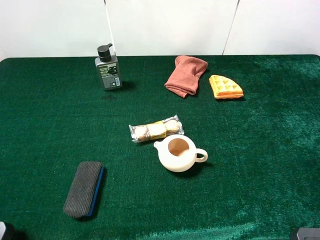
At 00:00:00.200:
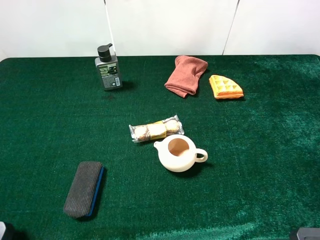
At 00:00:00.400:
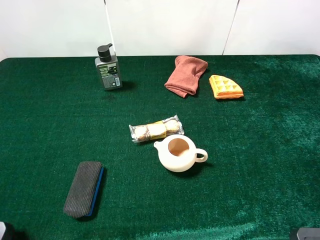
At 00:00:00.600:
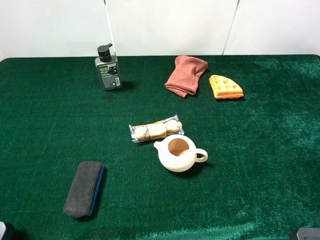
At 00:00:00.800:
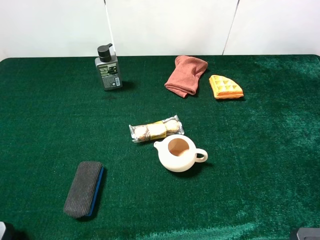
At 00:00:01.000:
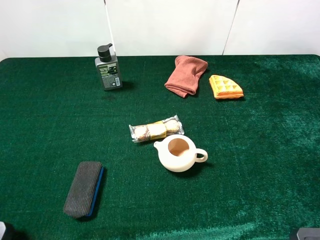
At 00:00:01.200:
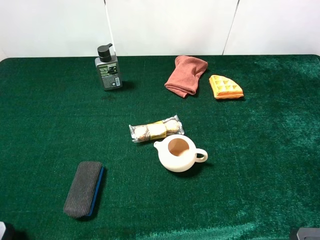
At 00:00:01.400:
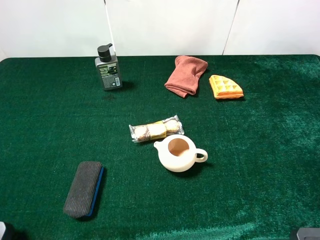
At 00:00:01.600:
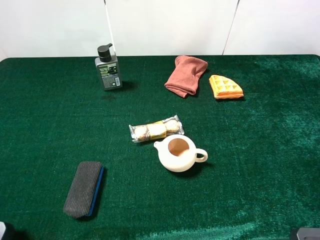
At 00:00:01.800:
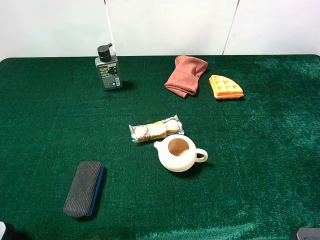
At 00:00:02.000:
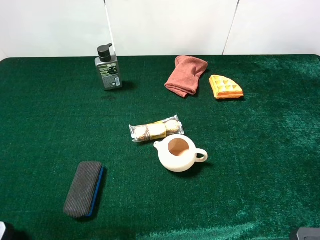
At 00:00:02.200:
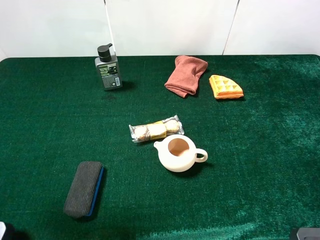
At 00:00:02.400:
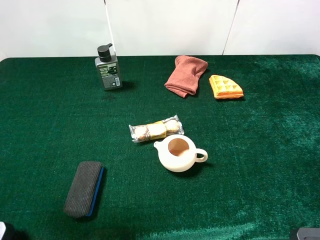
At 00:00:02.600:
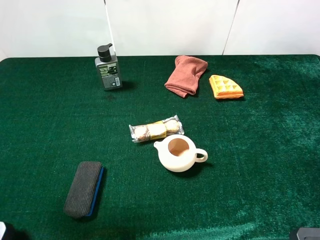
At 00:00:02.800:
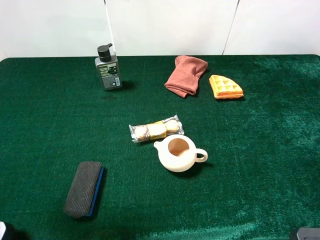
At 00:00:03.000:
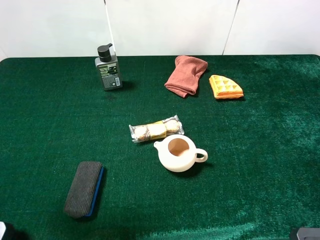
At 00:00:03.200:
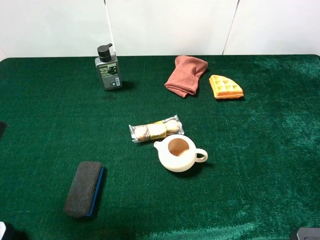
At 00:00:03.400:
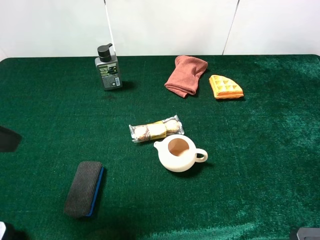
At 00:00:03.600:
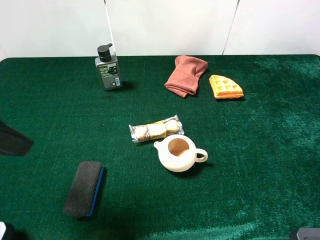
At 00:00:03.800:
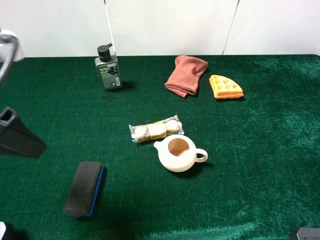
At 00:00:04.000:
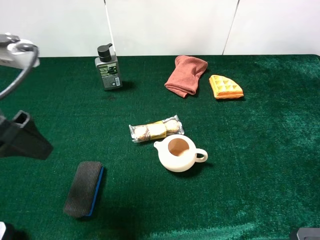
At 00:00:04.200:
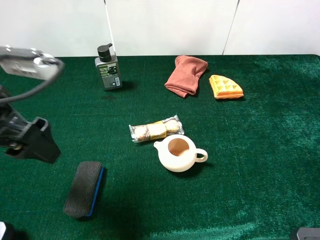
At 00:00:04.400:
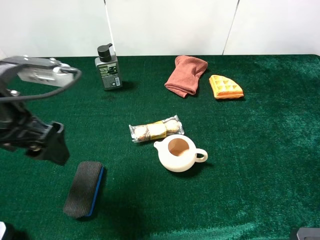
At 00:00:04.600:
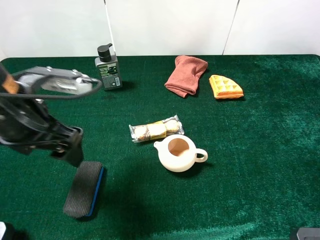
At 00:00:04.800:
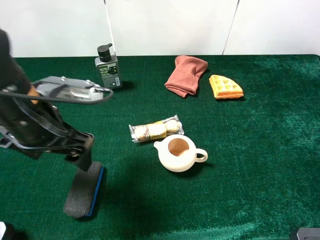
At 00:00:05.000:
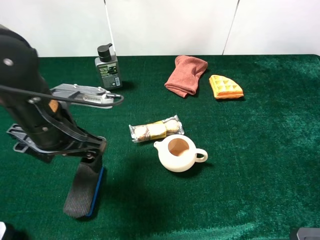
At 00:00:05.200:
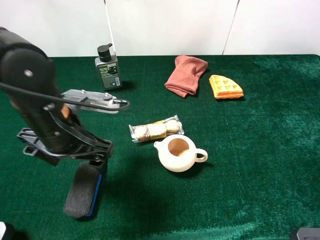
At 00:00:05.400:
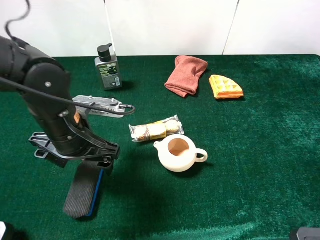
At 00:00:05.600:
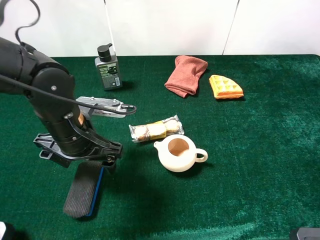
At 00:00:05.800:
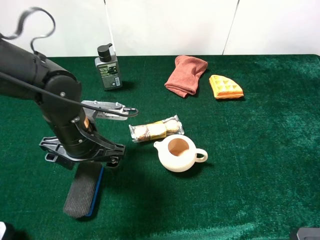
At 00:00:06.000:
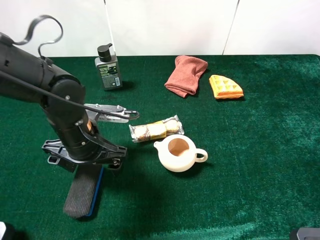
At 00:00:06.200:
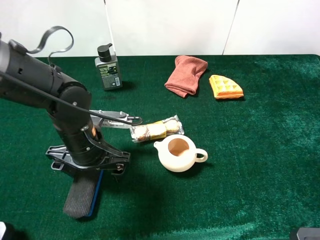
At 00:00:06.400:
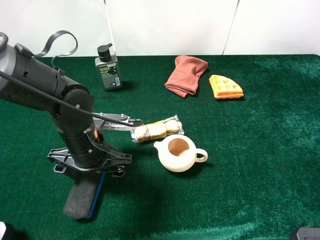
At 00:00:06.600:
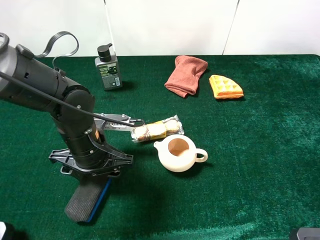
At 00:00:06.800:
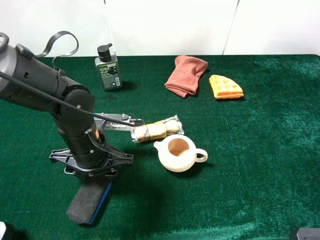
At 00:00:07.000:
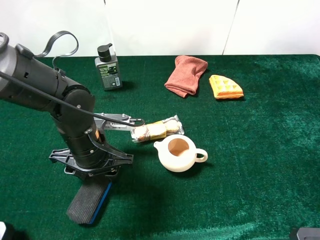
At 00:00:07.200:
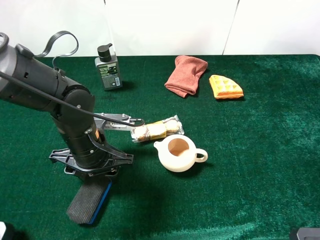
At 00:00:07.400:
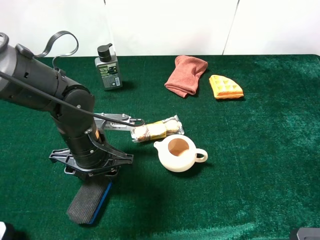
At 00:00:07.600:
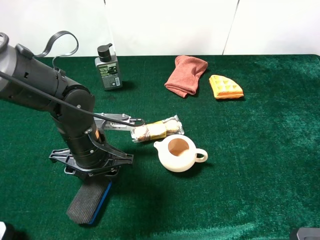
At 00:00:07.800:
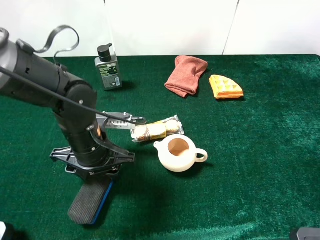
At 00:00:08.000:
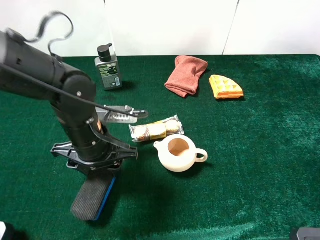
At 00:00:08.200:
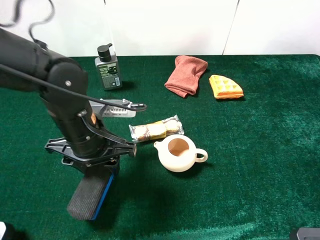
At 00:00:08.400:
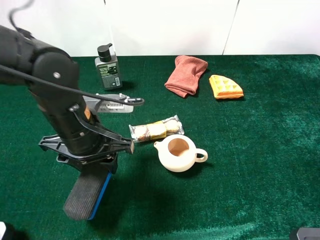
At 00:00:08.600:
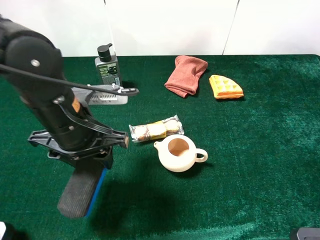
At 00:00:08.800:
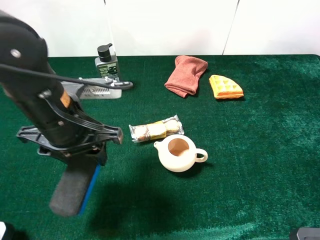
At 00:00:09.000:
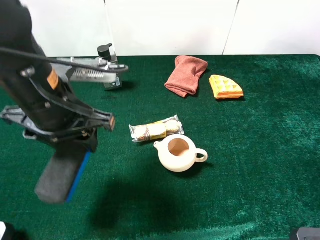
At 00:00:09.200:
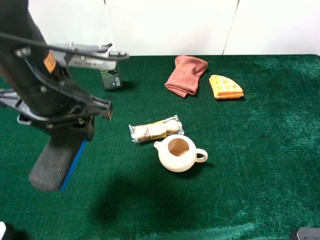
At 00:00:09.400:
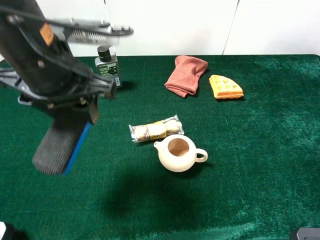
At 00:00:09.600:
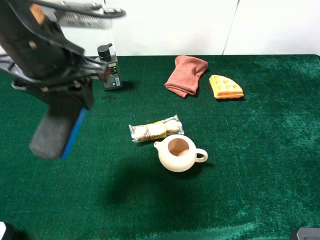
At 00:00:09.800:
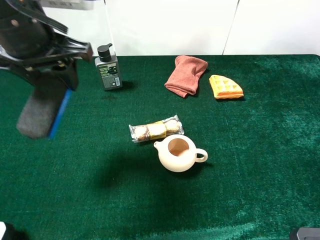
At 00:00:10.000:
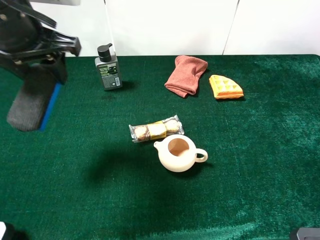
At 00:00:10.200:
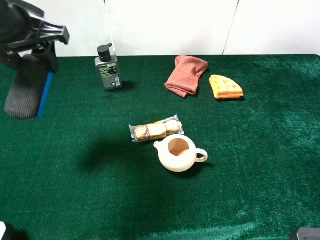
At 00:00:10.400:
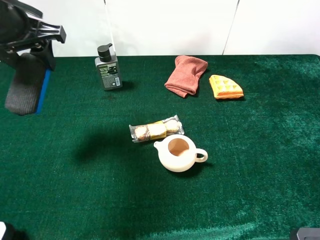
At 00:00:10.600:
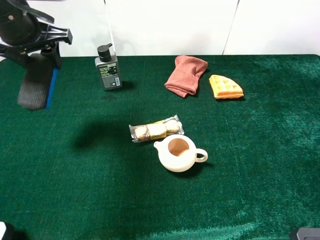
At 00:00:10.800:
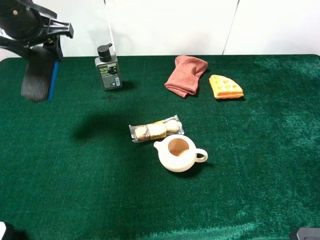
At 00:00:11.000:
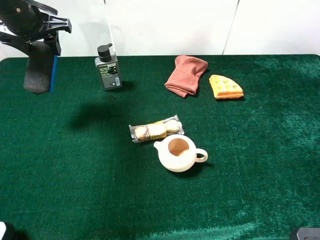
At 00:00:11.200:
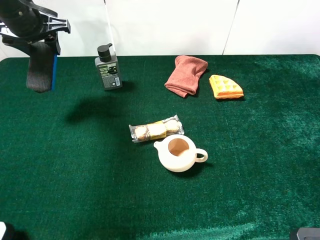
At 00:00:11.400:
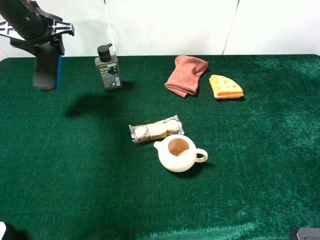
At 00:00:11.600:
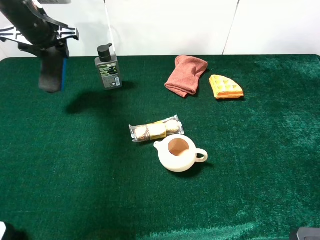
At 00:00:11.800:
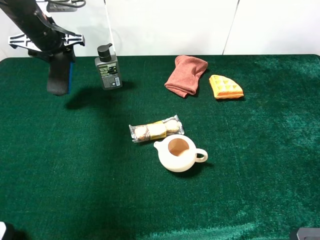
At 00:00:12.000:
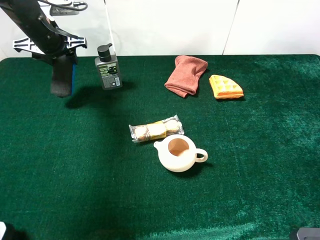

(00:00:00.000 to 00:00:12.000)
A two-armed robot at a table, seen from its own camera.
Task of the whole recording: the gripper move the object.
Step, 00:00:00.000 - 00:00:07.600: Grasp the blue blackboard earser with the left gripper.
00:00:01.600 - 00:00:03.000: The left gripper travels forward by approximately 5 cm.
00:00:03.000 - 00:00:04.400: The left gripper is displaced to the right, downward and forward by about 15 cm.
00:00:04.400 - 00:00:06.000: The left gripper is displaced downward and to the right by approximately 15 cm.
00:00:06.000 - 00:00:07.600: The left gripper closes up.
00:00:07.600 - 00:00:09.000: The left gripper travels upward by about 15 cm.
00:00:09.000 - 00:00:10.400: The left gripper heads forward, to the left and upward, covering about 15 cm.
00:00:10.400 - 00:00:12.000: The left gripper moves forward and downward, approximately 15 cm.

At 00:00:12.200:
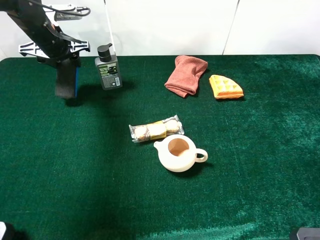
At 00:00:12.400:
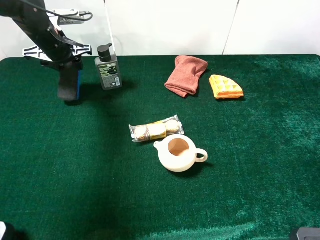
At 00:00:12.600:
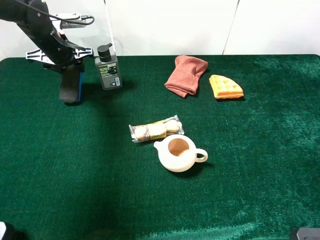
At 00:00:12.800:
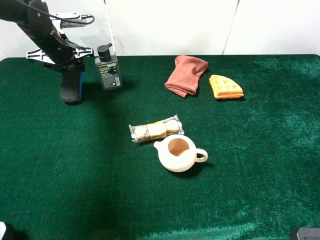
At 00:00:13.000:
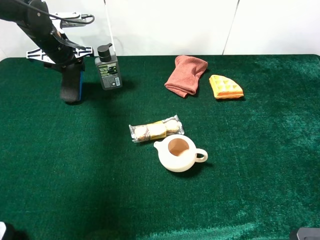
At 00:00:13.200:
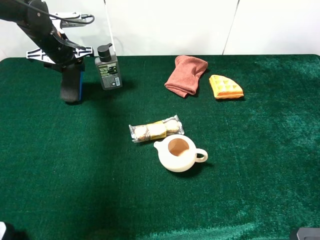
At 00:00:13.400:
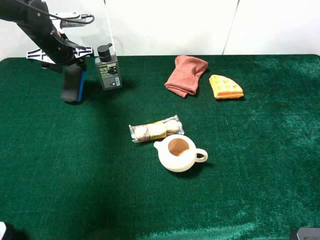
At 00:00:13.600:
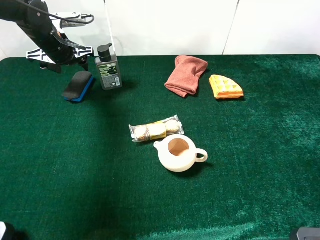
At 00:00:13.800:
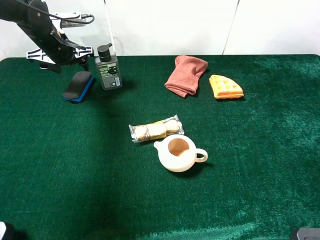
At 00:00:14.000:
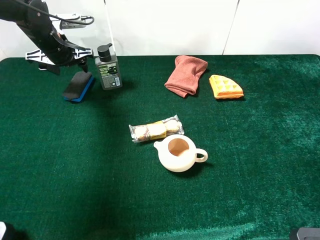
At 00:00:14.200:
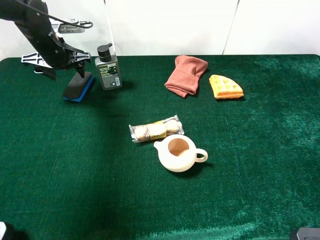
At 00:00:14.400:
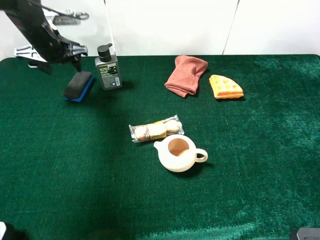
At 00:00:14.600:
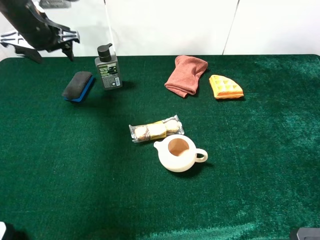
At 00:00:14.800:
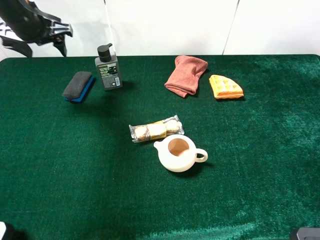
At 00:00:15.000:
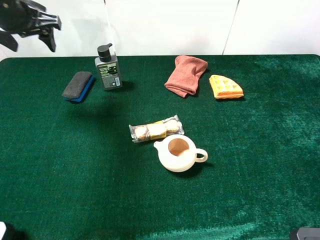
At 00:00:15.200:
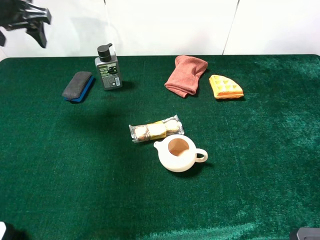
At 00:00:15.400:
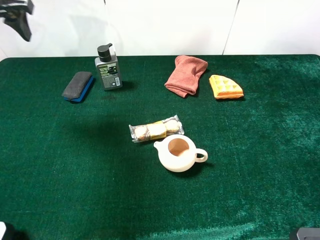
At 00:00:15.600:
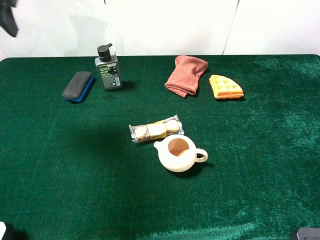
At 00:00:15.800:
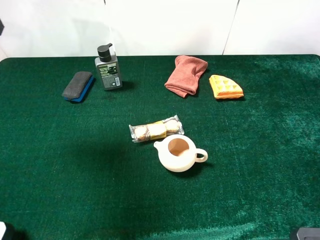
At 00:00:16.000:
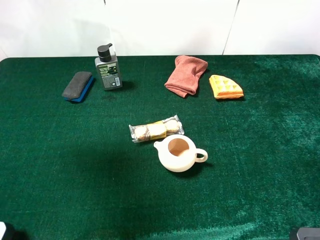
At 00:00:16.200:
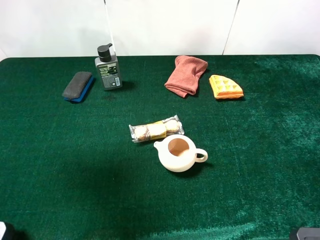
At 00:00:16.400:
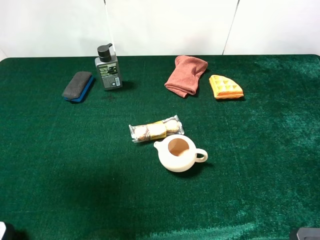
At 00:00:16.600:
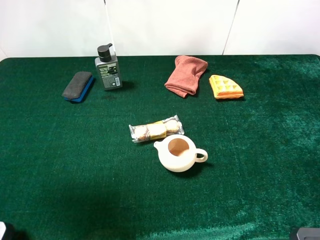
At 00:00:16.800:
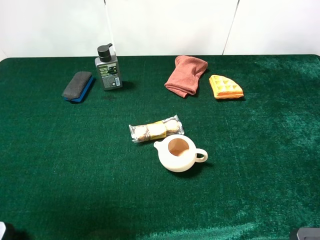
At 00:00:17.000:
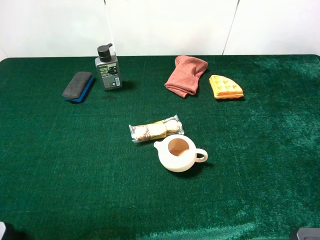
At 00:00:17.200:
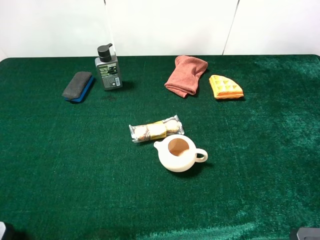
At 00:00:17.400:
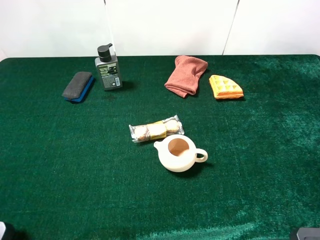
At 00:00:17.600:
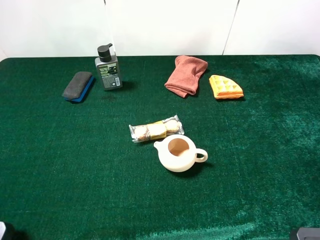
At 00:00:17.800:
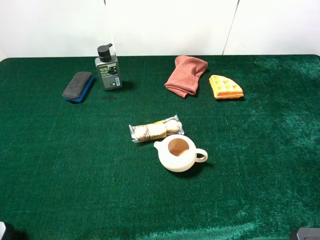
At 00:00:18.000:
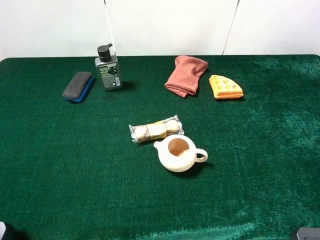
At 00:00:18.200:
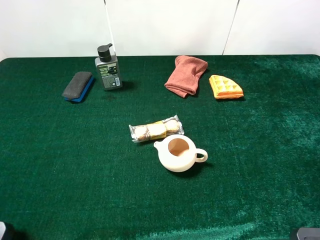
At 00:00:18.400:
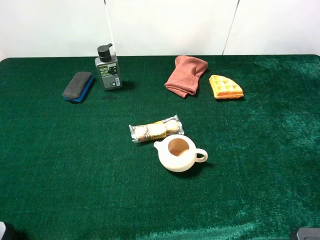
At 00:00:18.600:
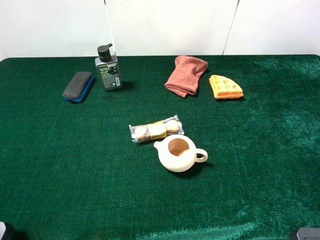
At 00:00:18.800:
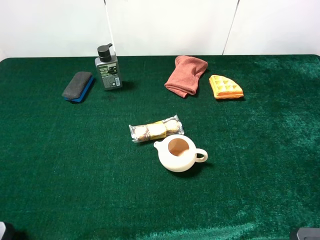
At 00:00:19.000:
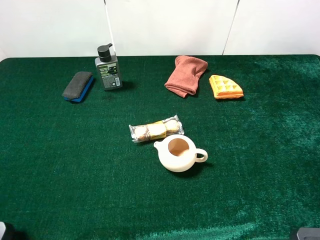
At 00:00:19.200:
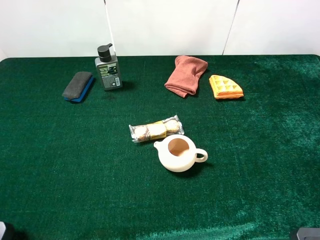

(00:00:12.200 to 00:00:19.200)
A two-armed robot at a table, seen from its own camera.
Task of the whole recording: the gripper move the object.
Step, 00:00:12.200 - 00:00:14.400: Place the blue blackboard earser on the table with the left gripper.
00:00:12.200 - 00:00:13.600: The left gripper opens up.
00:00:13.600 - 00:00:15.000: The left gripper heads upward and backward, covering roughly 15 cm.
00:00:15.000 - 00:00:16.400: The left gripper heads backward and upward, covering approximately 20 cm.
00:00:16.400 - 00:00:17.800: The left gripper heads backward and downward, covering about 20 cm, and opens.
